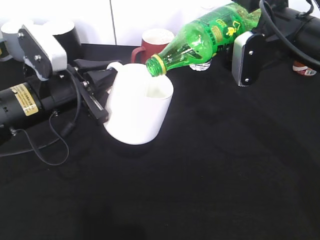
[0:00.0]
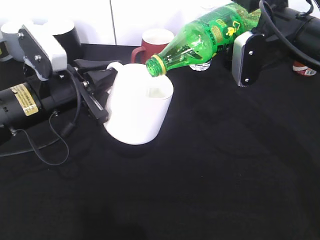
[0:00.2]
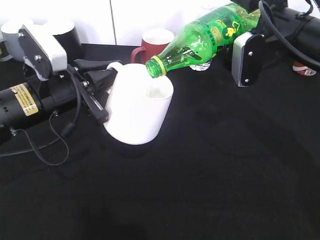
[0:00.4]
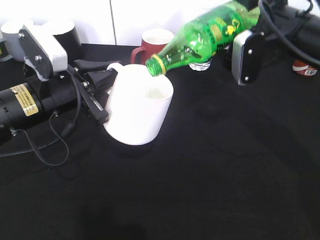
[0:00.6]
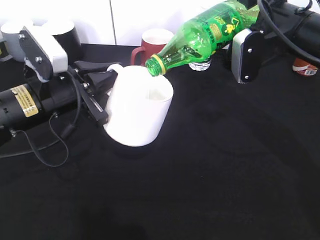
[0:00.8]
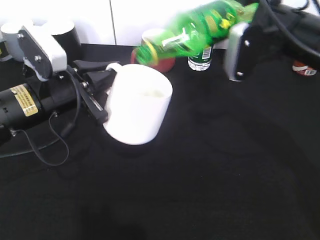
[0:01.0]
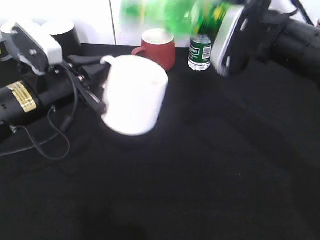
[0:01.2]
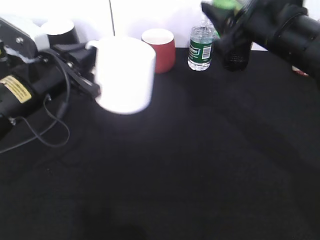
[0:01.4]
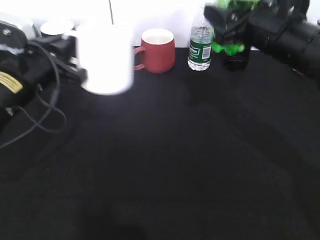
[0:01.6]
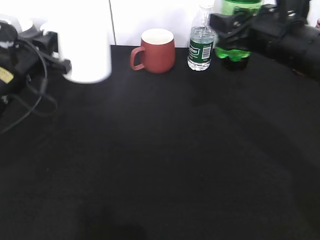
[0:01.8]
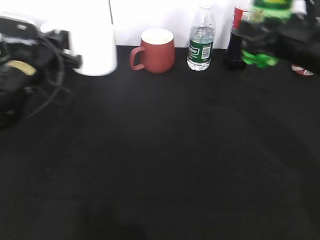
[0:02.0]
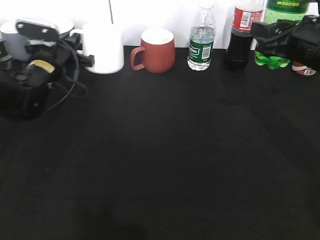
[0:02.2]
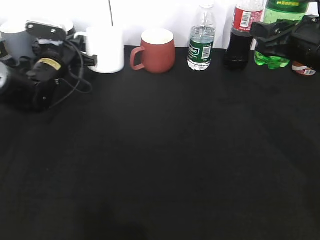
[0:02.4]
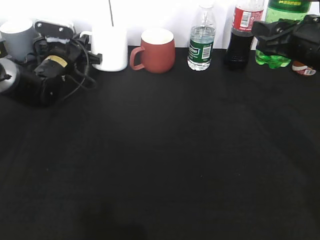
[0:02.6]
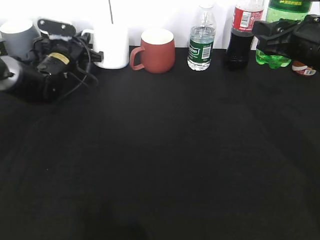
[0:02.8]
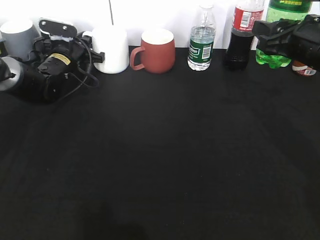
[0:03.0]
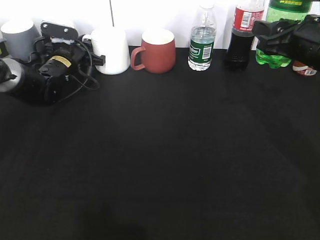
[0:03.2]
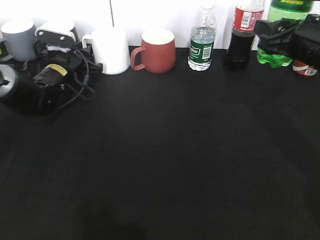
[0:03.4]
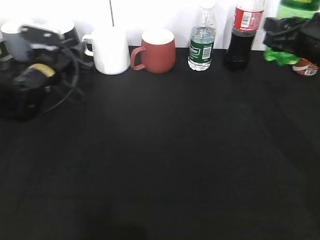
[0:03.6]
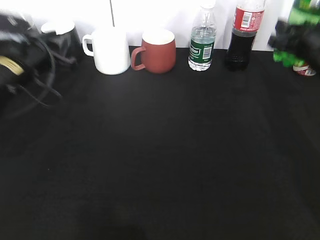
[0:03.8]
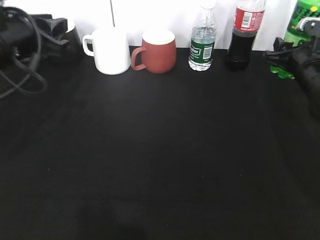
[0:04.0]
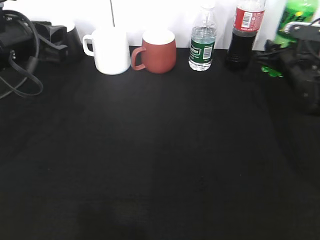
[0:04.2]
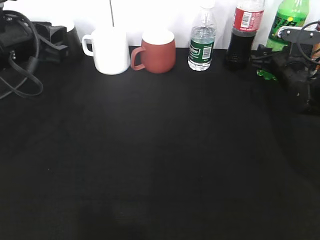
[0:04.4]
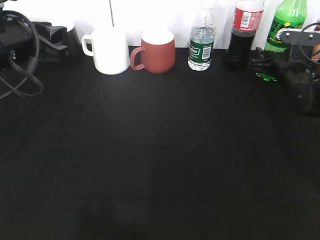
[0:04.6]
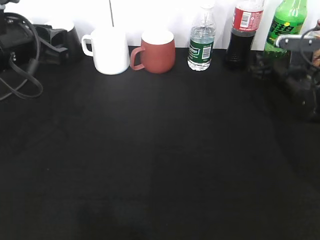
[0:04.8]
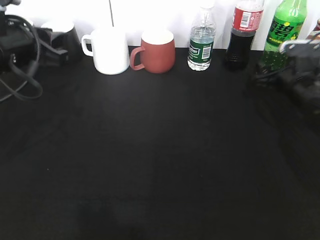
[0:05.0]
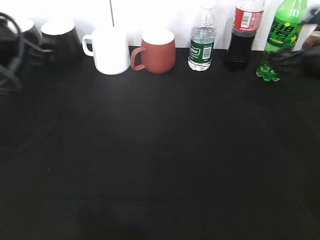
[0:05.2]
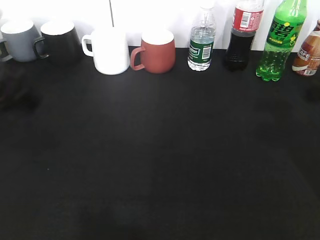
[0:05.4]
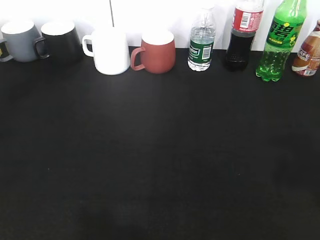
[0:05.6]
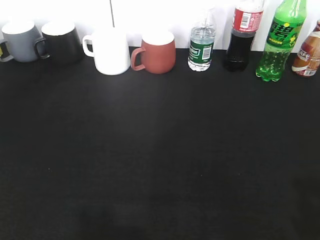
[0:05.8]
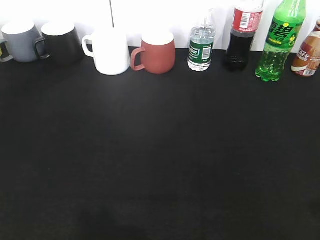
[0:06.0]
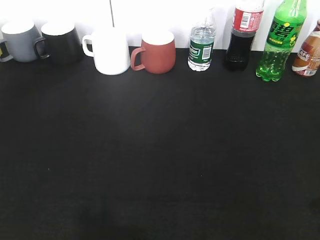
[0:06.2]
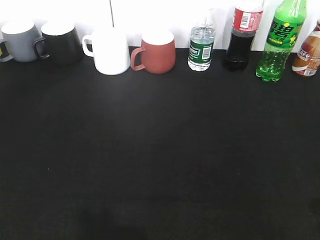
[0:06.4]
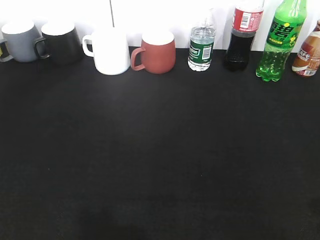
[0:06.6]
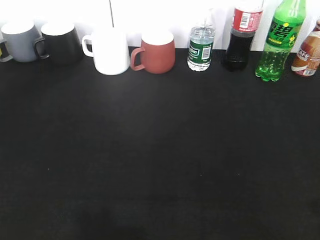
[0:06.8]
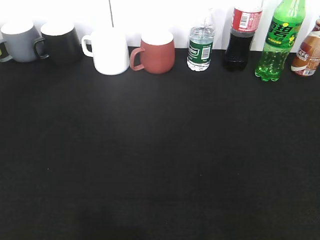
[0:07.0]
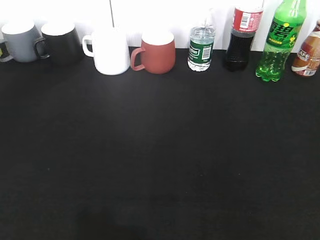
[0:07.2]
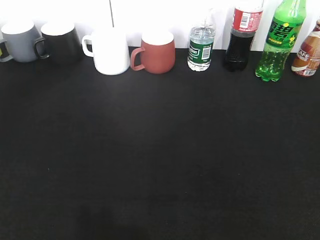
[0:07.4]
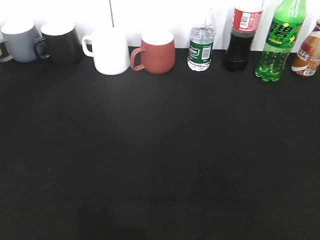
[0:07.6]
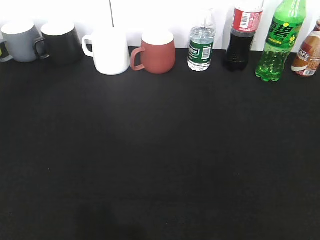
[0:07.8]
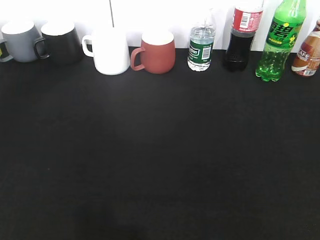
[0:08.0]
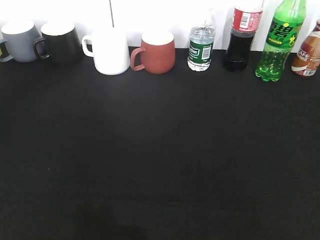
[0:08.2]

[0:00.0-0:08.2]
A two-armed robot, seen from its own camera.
Step, 0:01.2 to 0:05.0: Place the sprite bottle on the table with right gripper.
0:01.6 to 0:03.2: The left gripper shifts roughly 20 cm forward and downward, and opens up, while the right gripper travels to the right by approximately 5 cm.
0:03.2 to 0:05.0: The right gripper heads downward and forward, covering about 15 cm, and opens up; the left gripper goes some 25 cm backward and upward.
0:05.0 to 0:06.6: The right gripper goes some 40 cm backward and upward. Meanwhile the left gripper travels backward by roughly 30 cm, and opens.

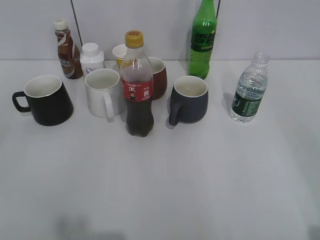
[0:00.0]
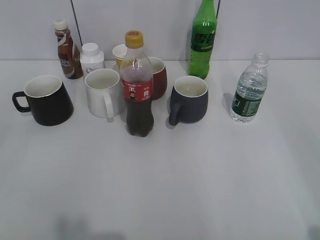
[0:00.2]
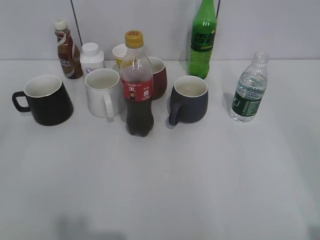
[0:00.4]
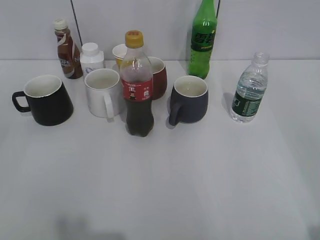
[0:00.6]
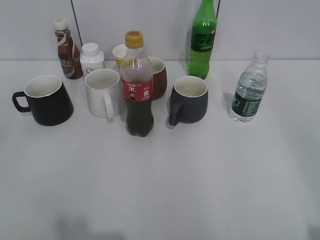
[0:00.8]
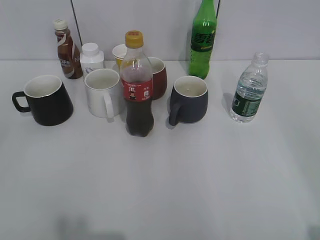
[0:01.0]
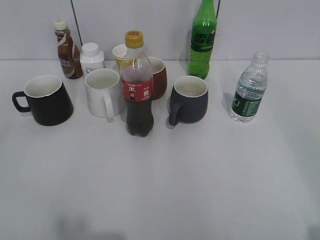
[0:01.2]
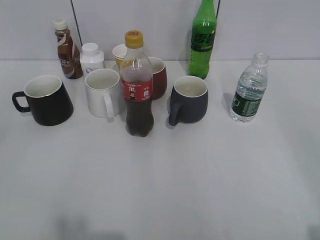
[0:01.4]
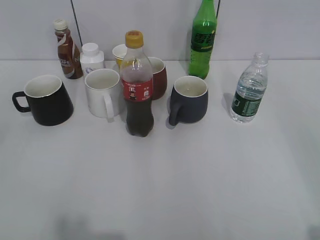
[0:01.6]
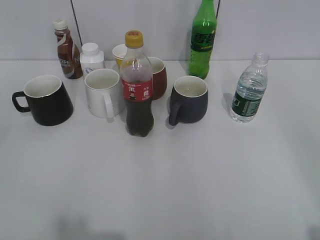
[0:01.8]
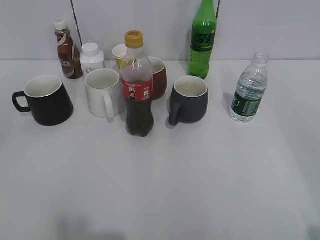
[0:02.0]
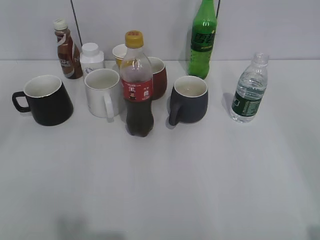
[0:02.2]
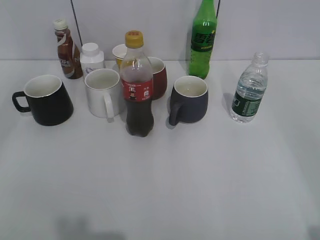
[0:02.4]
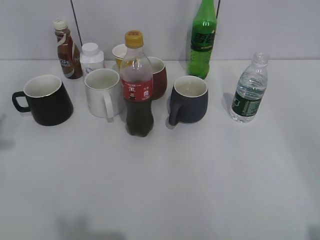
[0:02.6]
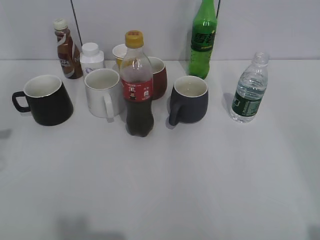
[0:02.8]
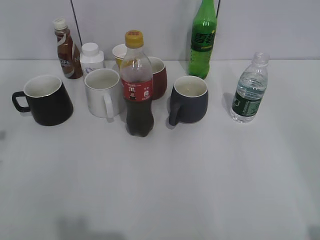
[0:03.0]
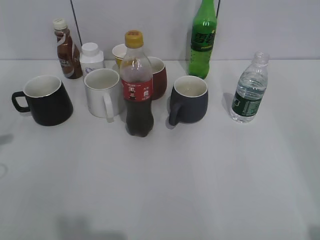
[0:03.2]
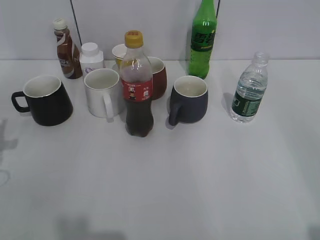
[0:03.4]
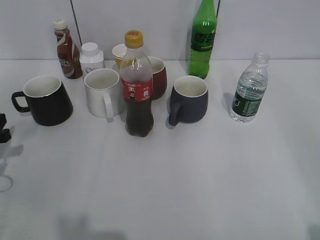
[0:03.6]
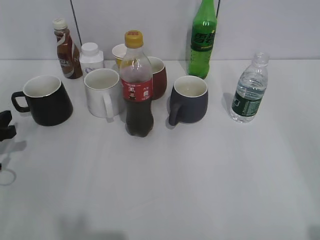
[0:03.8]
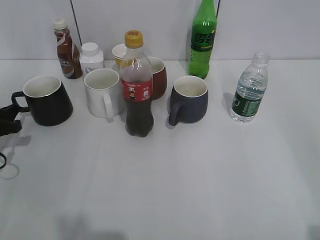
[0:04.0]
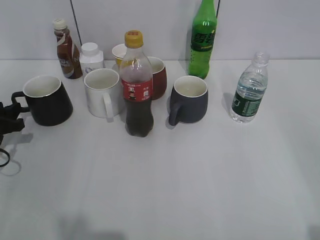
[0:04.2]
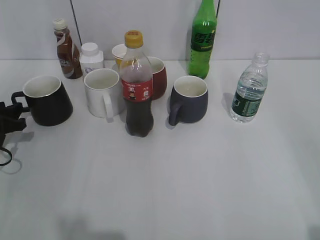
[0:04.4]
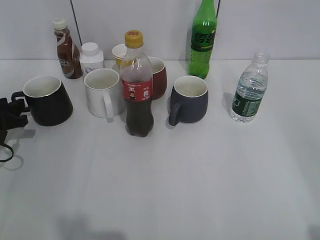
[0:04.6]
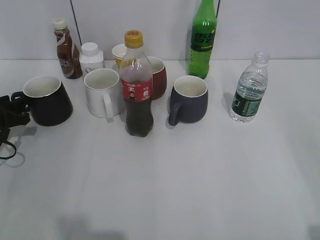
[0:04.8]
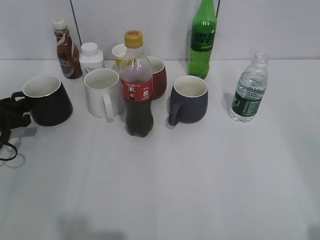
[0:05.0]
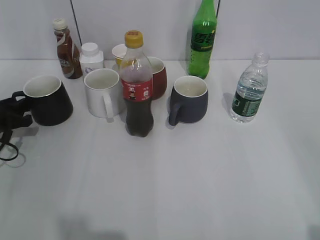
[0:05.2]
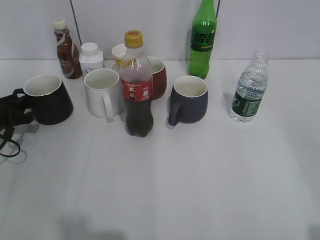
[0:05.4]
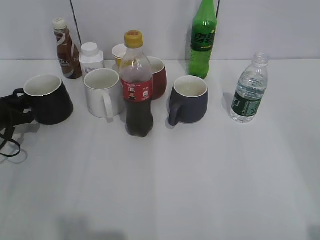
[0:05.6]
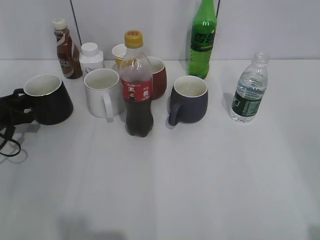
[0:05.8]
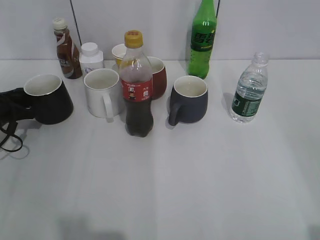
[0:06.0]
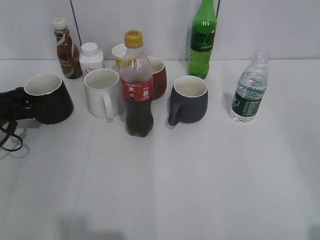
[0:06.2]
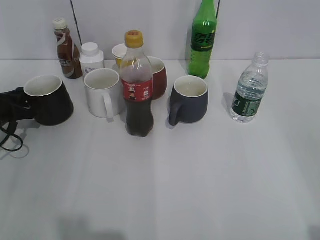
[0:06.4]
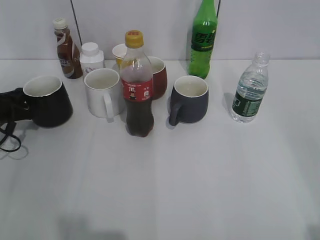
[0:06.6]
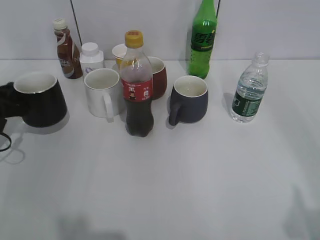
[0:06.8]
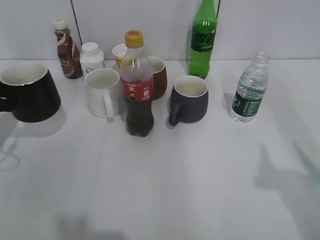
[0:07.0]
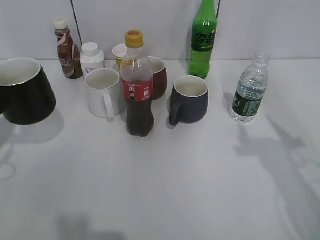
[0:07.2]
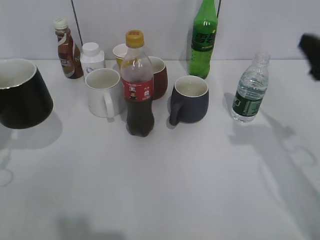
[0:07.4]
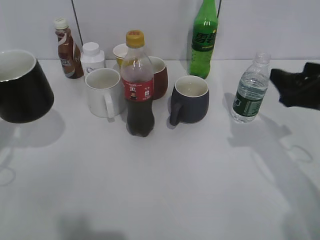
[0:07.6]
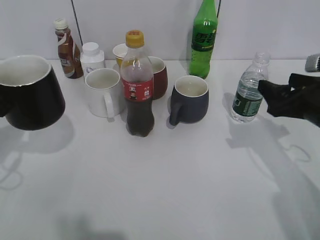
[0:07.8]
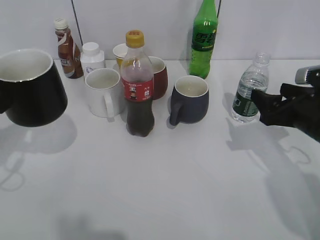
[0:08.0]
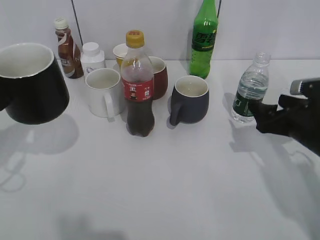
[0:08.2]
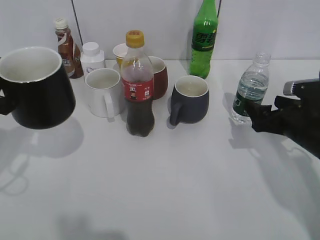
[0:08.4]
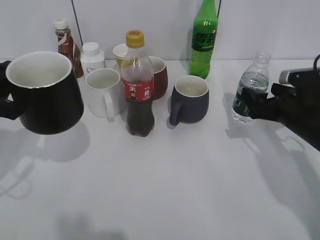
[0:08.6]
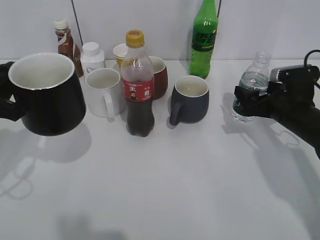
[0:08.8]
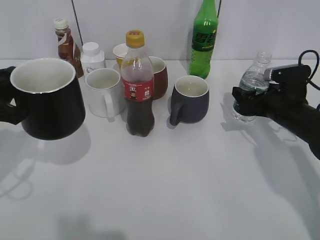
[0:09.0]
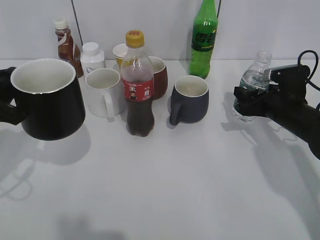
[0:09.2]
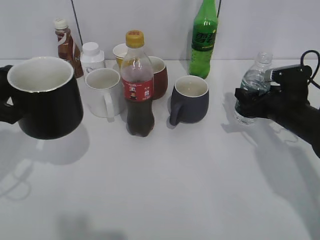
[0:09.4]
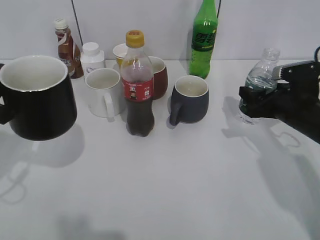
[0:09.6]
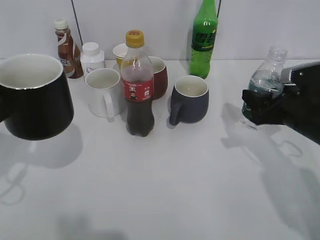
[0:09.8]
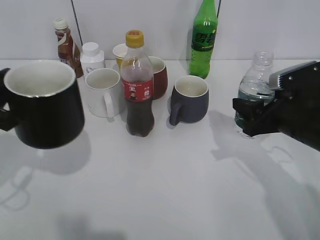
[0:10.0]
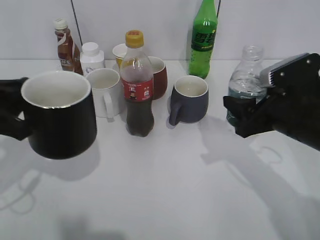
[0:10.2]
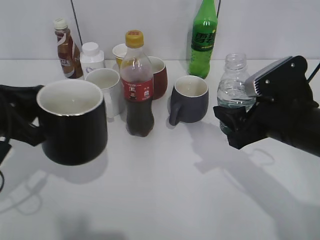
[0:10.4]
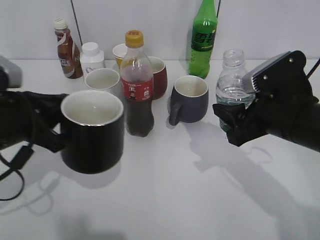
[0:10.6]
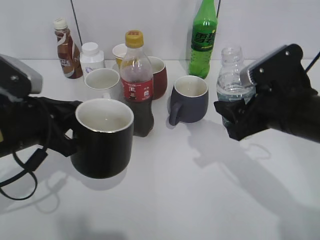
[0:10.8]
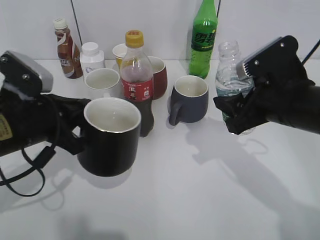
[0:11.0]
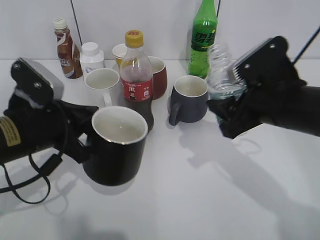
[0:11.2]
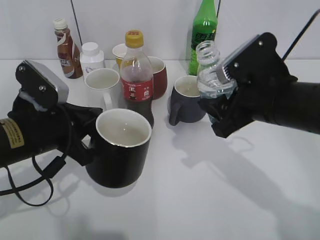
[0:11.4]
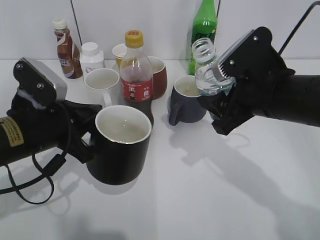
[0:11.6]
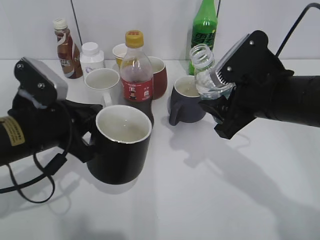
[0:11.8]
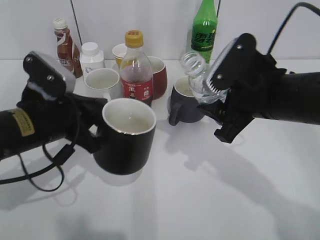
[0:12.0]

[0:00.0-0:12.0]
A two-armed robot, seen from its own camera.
Step, 0:01.4 to 0:06.2: Grasp the black cup with left gripper.
Step, 0:06.6 to 0:07.2: Lift the black cup with left gripper.
Step, 0:07.6 to 0:09.0: Grasp the bottle with water with right gripper.
0:03.0 to 0:04.4: The left gripper heads downward and forward, covering roughly 20 cm.
0:04.4 to 0:06.0: The left gripper closes.
0:06.0 to 0:07.6: The right gripper heads forward, covering roughly 25 cm, while the left gripper moves upward and backward, roughly 15 cm, and closes up.
0:07.6 to 0:09.0: The left gripper travels to the right by approximately 5 cm. The right gripper goes roughly 15 cm downward and forward.
0:09.0 to 0:10.4: The right gripper is displaced backward, upward and to the left by roughly 15 cm, and closes its fingers.
0:10.4 to 0:12.0: The left gripper is displaced to the right by some 5 cm. Meanwhile the right gripper shifts by approximately 5 cm.

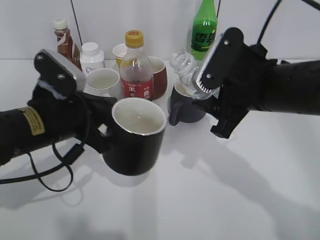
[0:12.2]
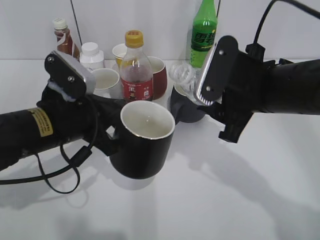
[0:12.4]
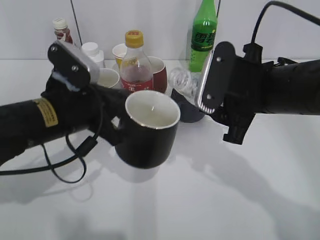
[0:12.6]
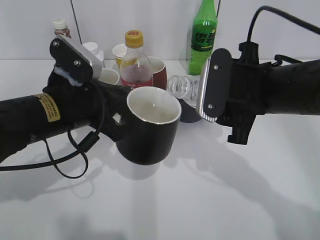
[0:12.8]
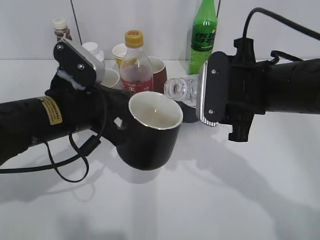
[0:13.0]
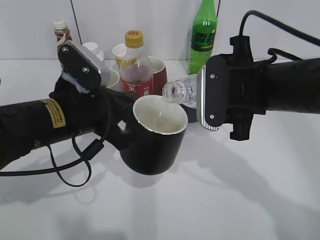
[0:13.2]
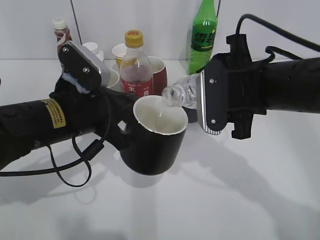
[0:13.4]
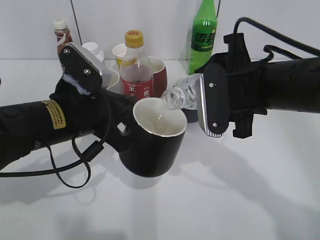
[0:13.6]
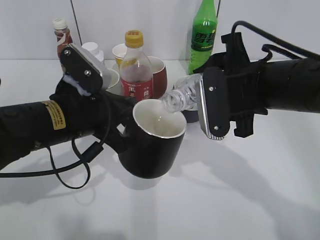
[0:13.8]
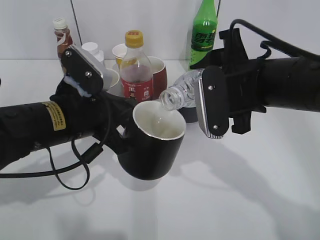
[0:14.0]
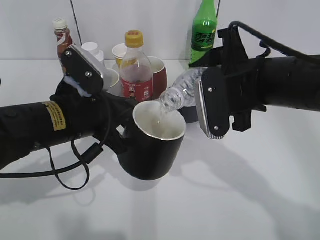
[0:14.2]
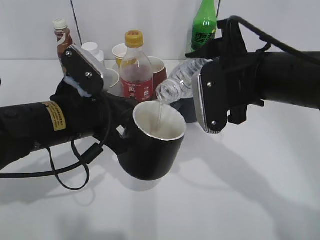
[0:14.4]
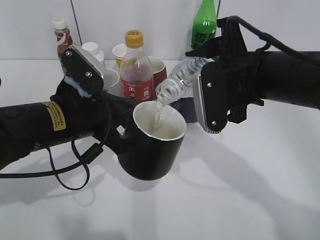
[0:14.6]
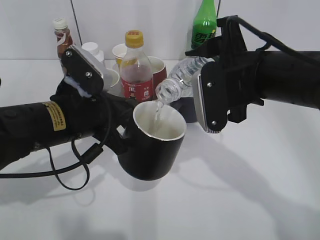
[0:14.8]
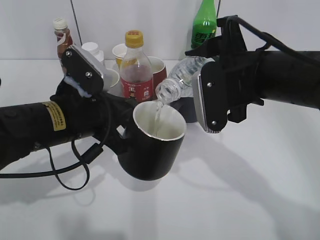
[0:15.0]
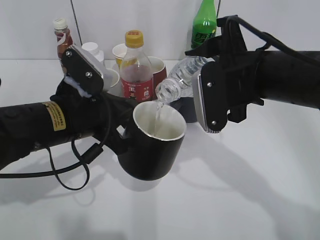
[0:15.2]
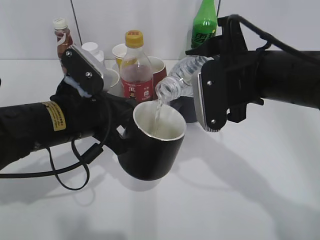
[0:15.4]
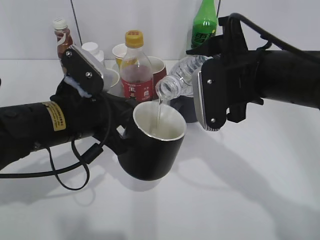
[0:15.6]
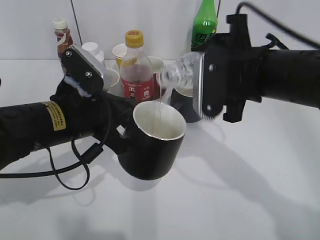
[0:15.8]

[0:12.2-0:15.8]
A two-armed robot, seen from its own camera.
Step, 0:12.2 to 0:15.8: Pour the water from bottle to cup with right gripper.
0:14.0 to 0:15.8: There are only small adjustments of the grippers.
